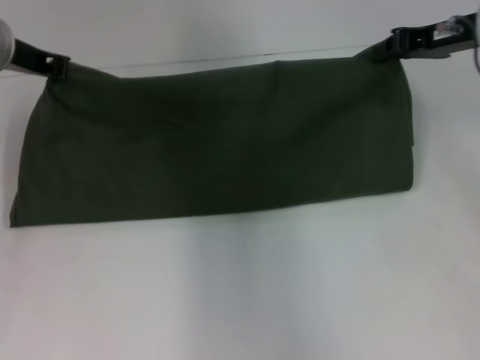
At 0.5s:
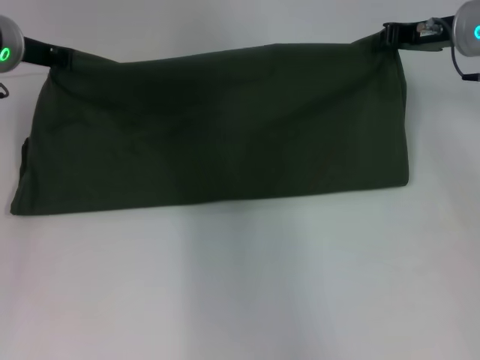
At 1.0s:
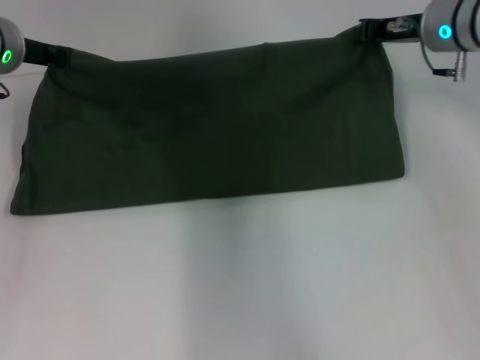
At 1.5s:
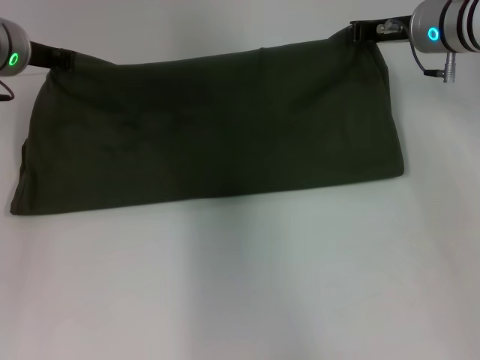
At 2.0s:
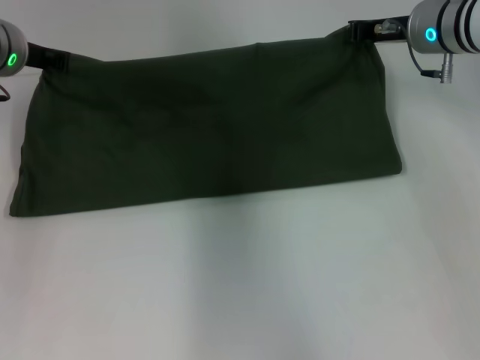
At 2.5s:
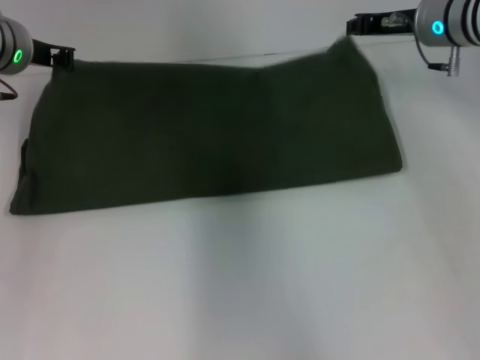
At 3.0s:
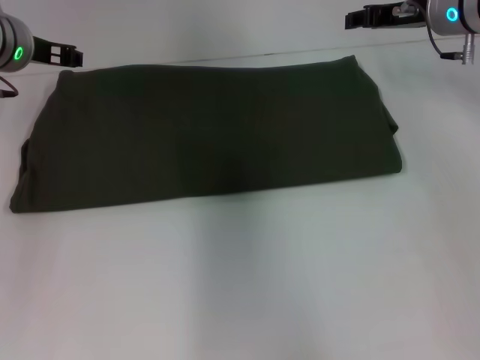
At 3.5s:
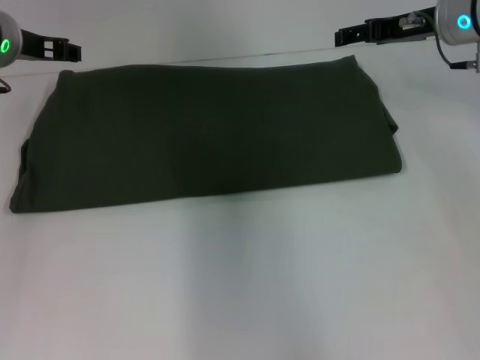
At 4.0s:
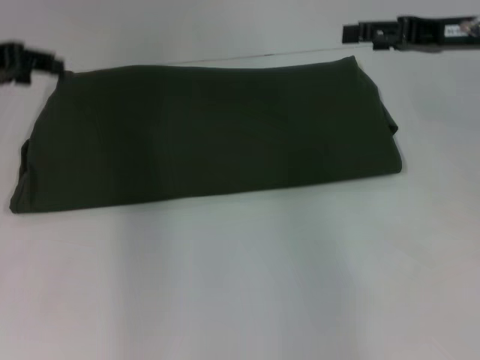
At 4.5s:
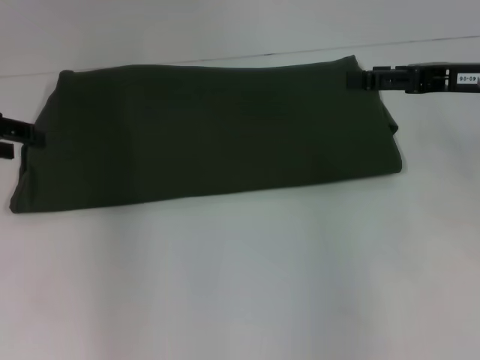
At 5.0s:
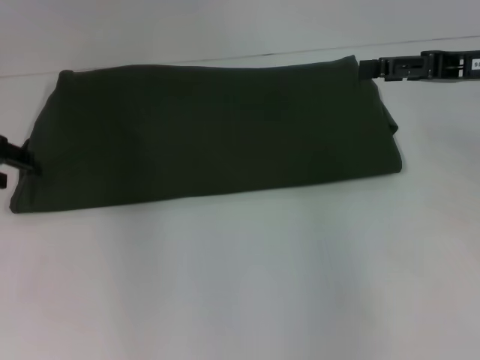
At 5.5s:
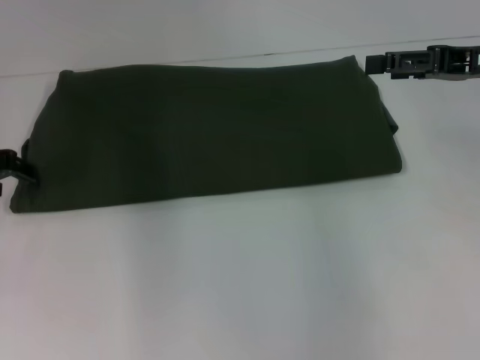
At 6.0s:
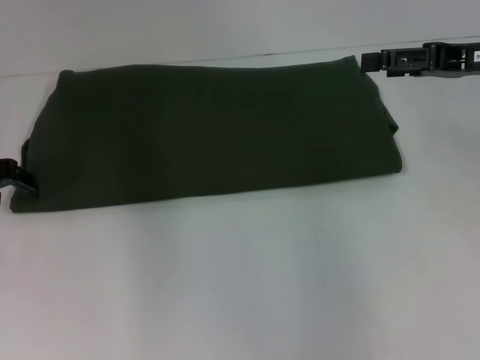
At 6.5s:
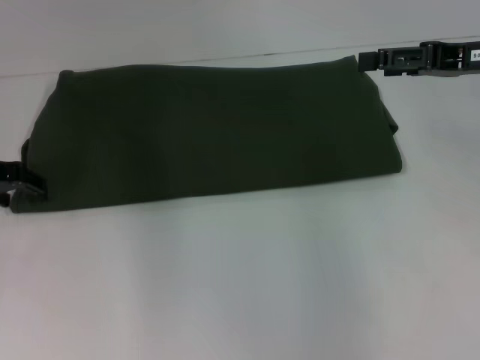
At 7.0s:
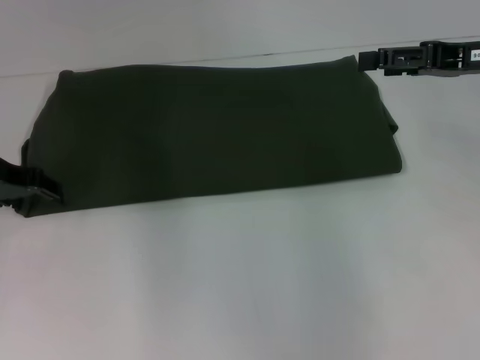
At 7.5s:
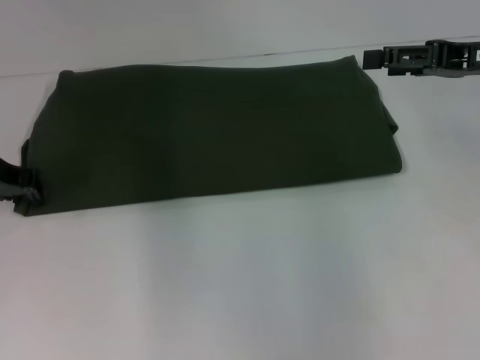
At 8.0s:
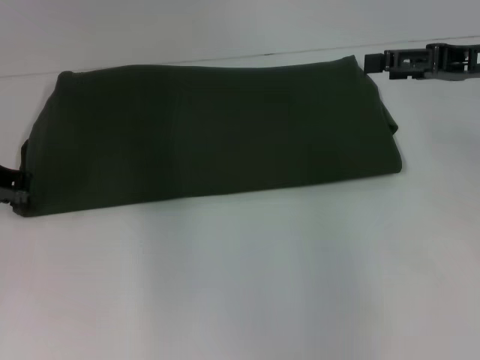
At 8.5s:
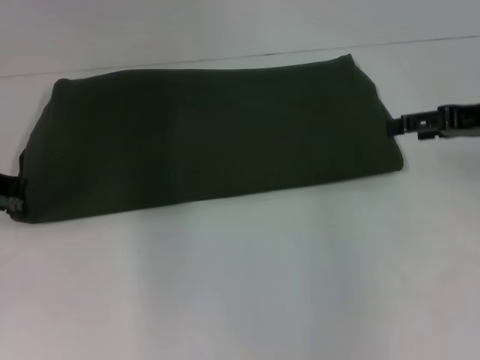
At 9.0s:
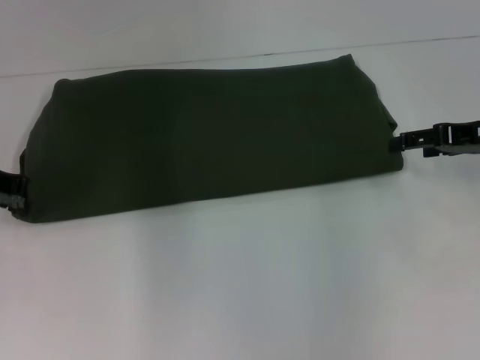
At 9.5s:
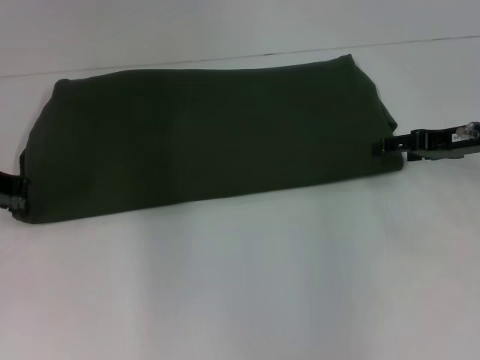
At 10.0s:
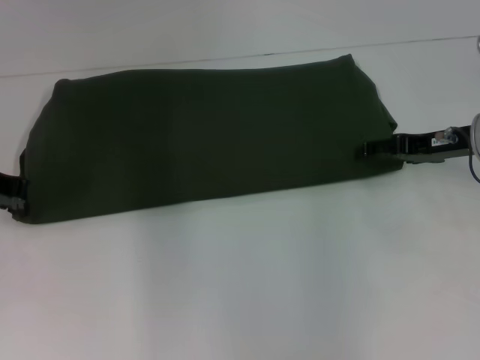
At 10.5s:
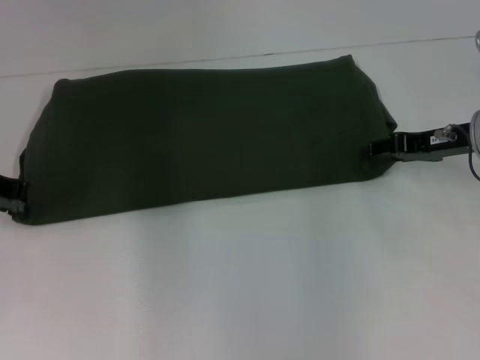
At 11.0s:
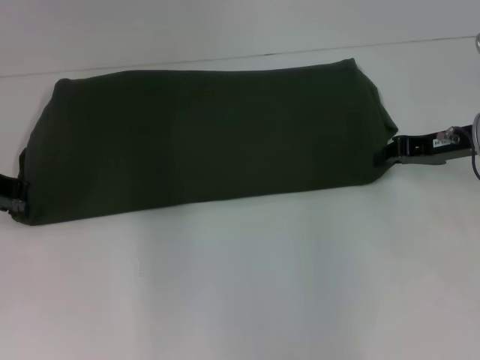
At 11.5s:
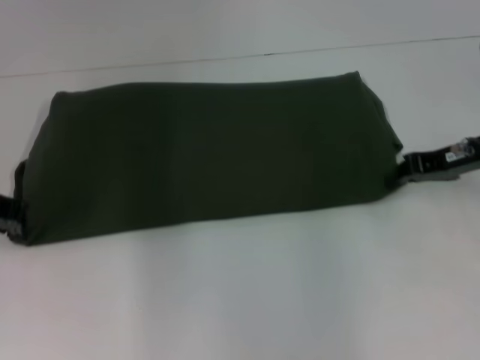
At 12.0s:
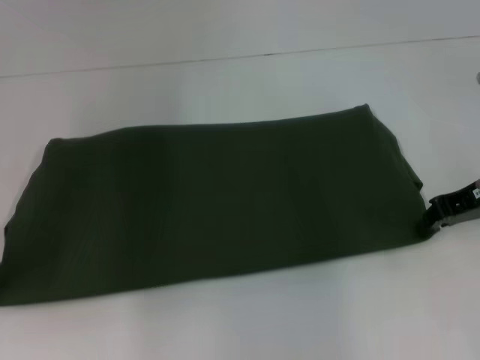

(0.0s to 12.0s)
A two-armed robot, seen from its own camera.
Step, 0.0s - 3.5s: Fold the clothes with your right hand.
0.0s - 2.0s: The right gripper shifts by roughly 5 cm.
2.0s - 4.0s: The right gripper goes about 10 cm backward and to the right, and opens. Meanwhile the left gripper is displaced to the left by about 10 cm, and opens.
4.0s - 6.0s: The left gripper goes approximately 10 cm downward.
8.0s - 10.0s: The right gripper heads downward, covering approximately 10 cm.
10.0s - 12.0s: The right gripper closes up.

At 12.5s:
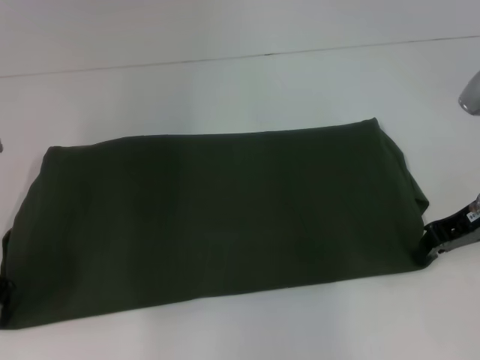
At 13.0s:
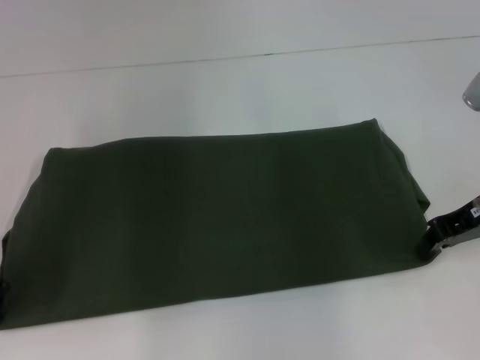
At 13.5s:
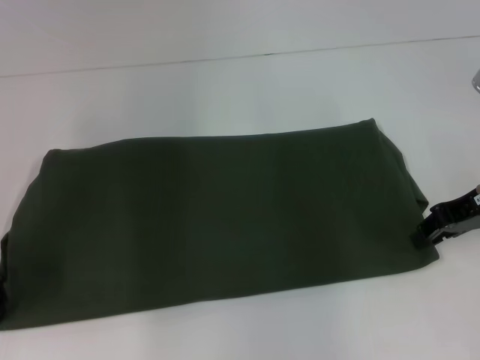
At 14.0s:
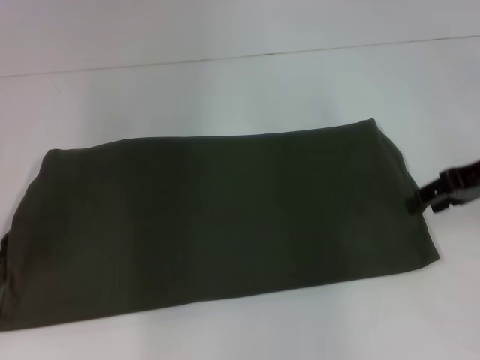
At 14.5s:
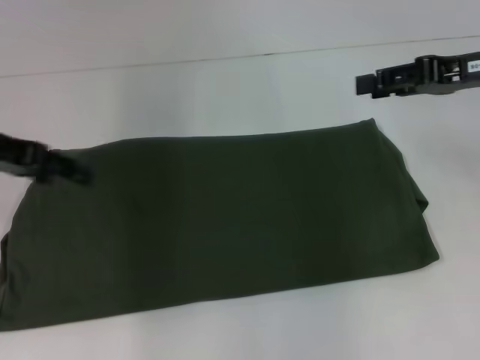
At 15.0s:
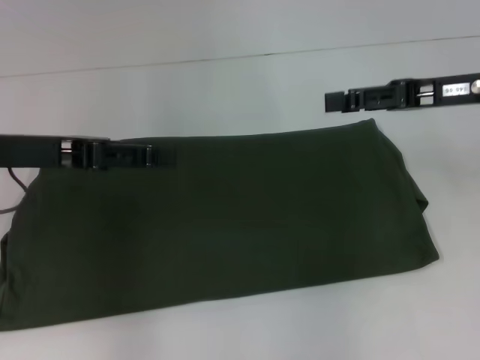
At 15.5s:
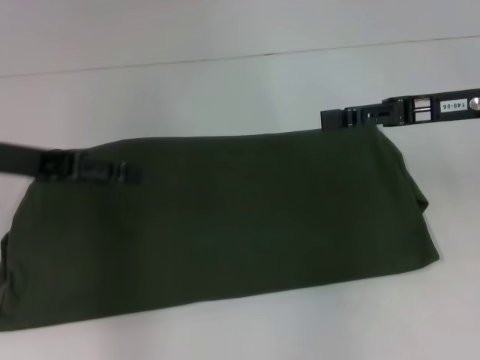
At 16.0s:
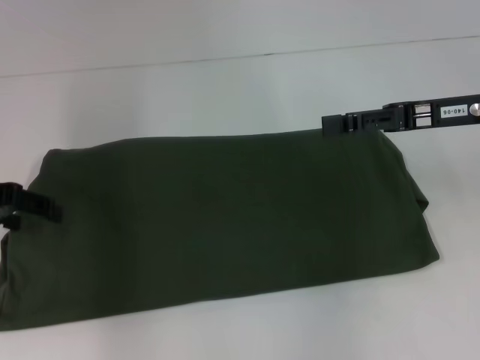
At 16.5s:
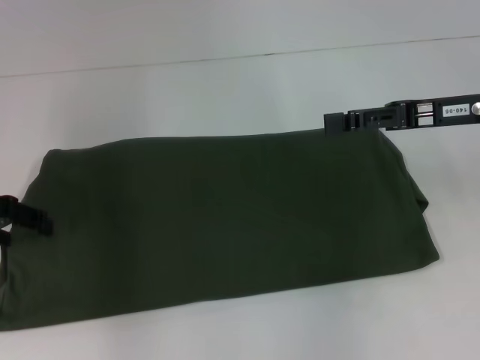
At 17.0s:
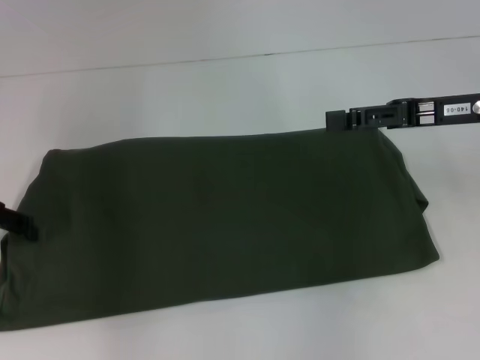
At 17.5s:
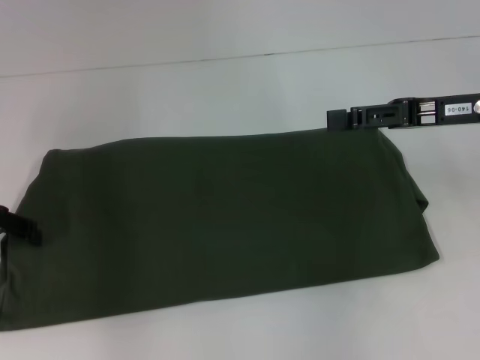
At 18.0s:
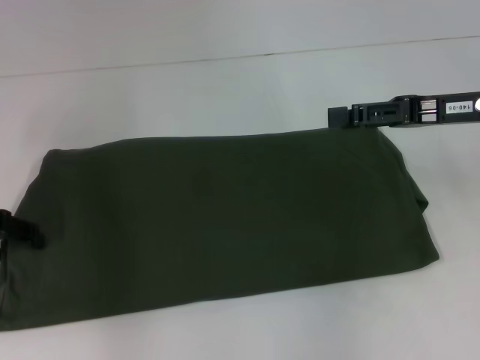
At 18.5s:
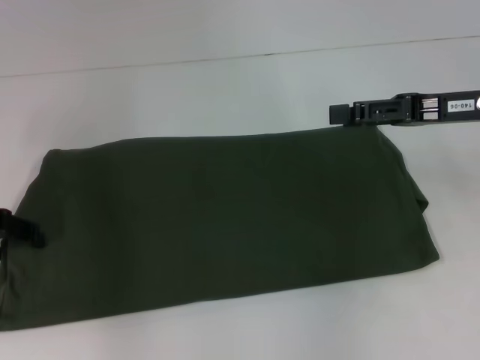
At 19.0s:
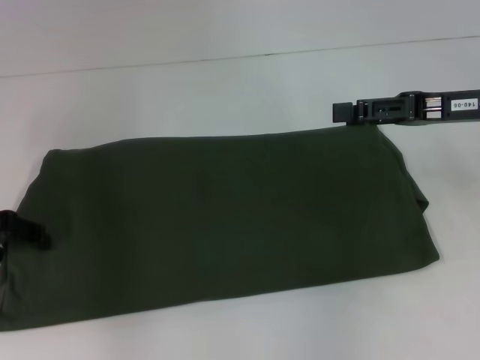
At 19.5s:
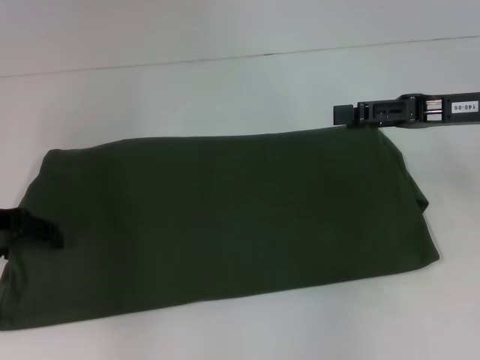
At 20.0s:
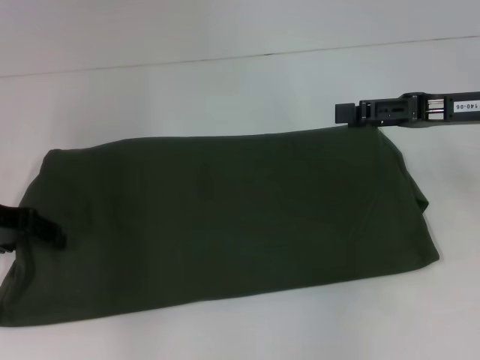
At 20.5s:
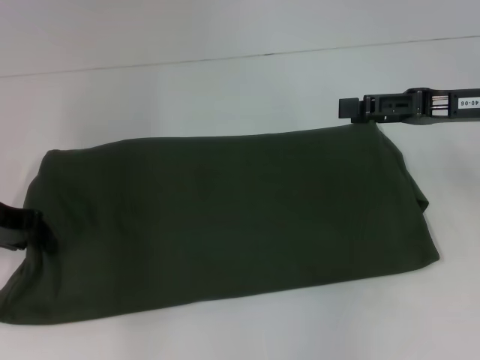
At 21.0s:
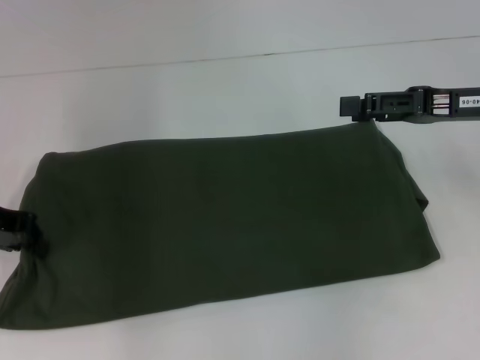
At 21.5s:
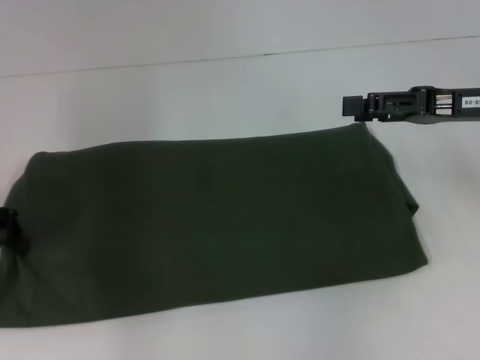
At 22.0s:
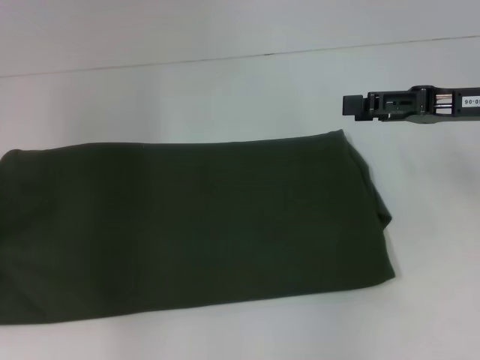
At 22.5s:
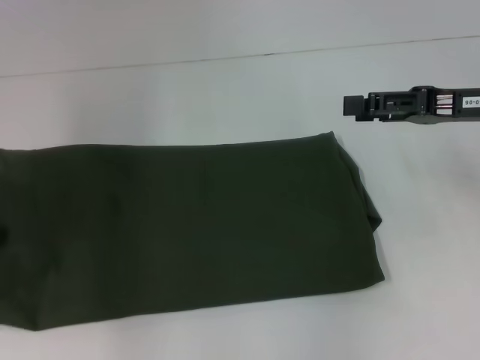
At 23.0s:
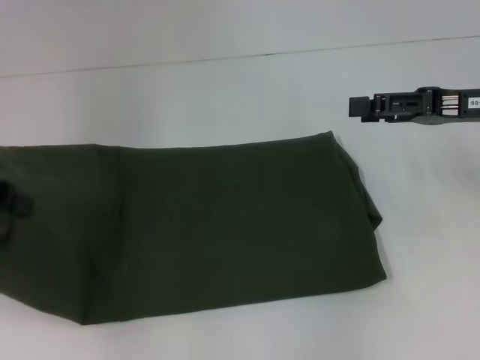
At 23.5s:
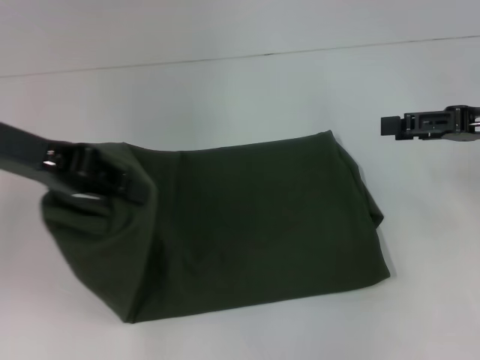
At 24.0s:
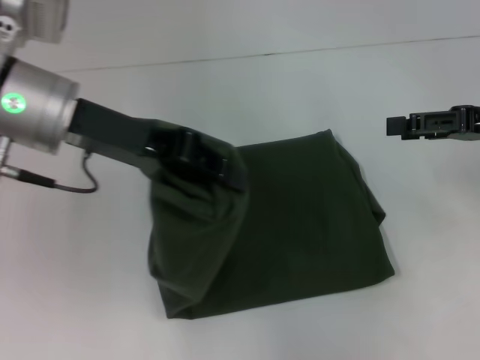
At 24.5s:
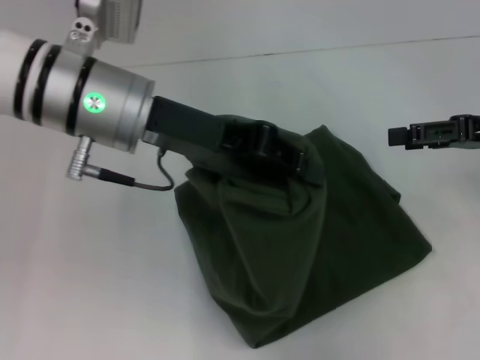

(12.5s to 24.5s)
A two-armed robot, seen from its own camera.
12.5s - 14.5s: Both grippers travel together upward, roughly 10 cm. The left gripper opens its fingers; the right gripper opens its fingers.
14.5s - 16.5s: The left gripper goes approximately 5 cm downward.
16.5s - 18.5s: There are only small adjustments of the grippers.
18.5s - 20.5s: The left gripper closes.
20.5s - 22.5s: The left gripper moves about 5 cm.
22.5s - 24.5s: The left gripper shifts about 20 cm to the right.

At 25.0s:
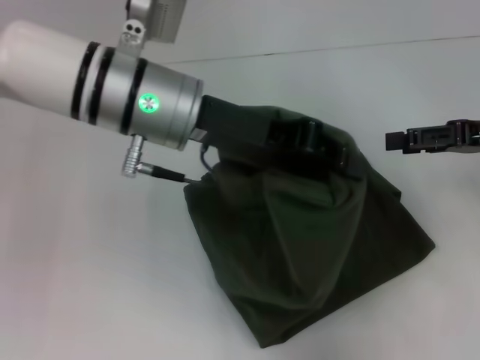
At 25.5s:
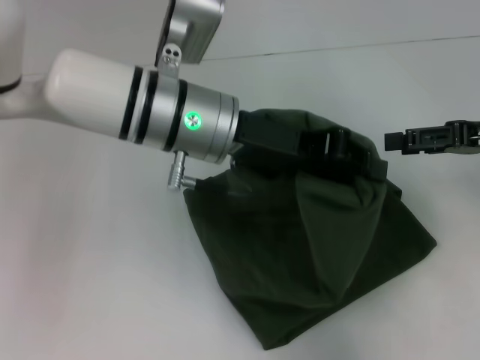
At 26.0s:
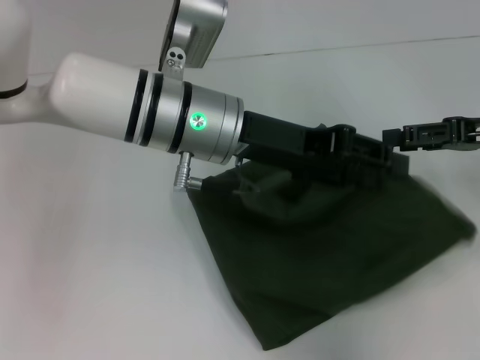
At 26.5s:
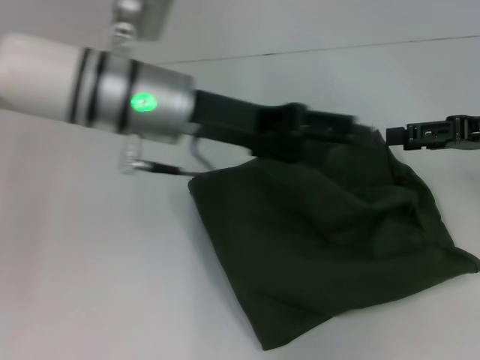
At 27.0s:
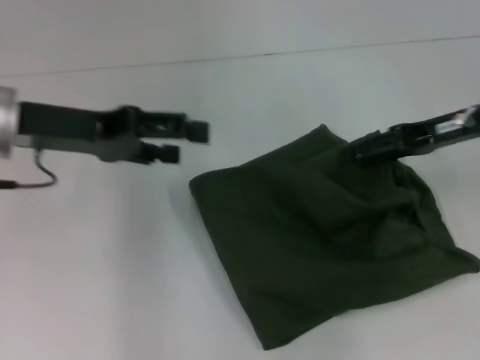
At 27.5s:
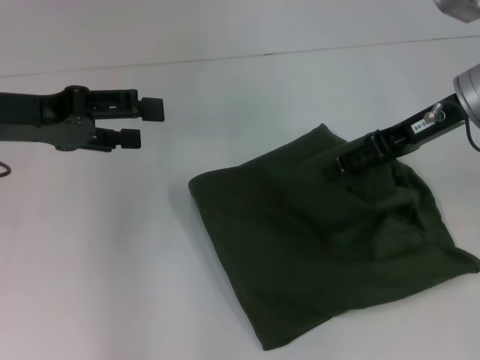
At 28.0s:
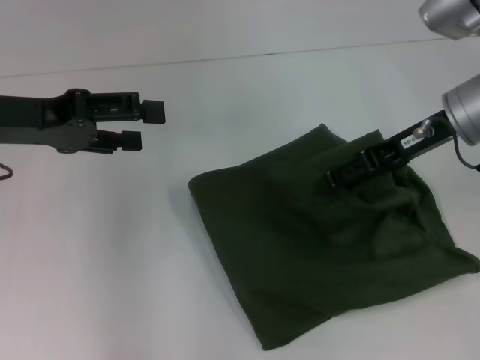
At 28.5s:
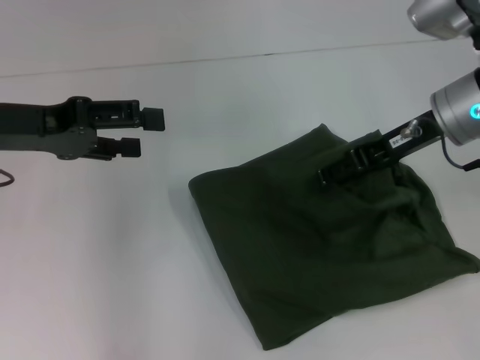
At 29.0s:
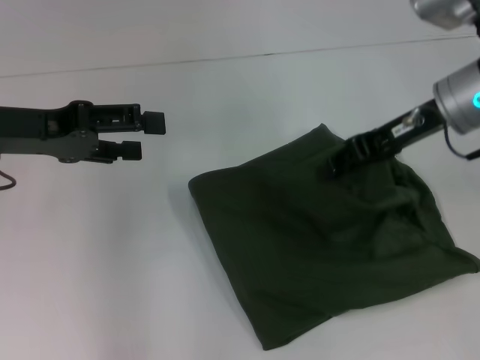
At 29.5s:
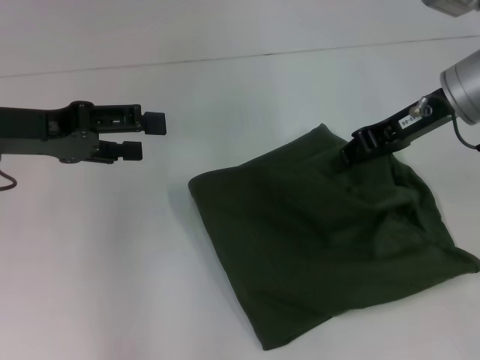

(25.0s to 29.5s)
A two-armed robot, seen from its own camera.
25.0s - 27.0s: The left gripper shifts some 15 cm to the left, and opens its fingers. The right gripper goes roughly 5 cm to the left.
27.0s - 29.5s: The right gripper shifts by about 5 cm, and closes its fingers.
